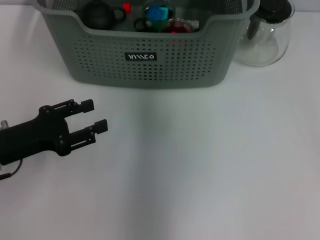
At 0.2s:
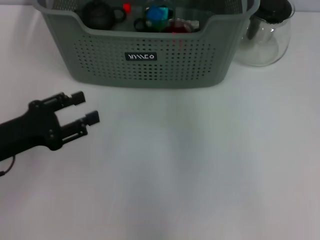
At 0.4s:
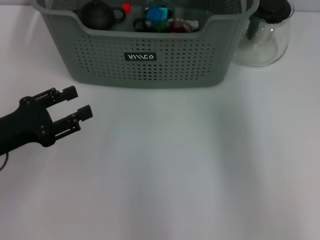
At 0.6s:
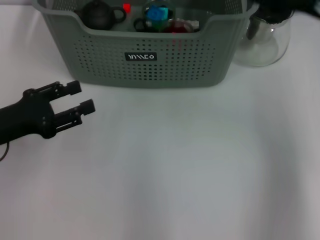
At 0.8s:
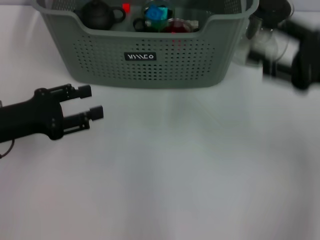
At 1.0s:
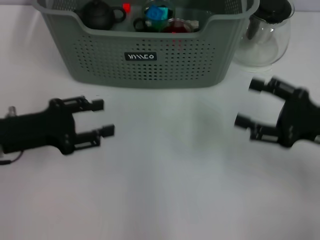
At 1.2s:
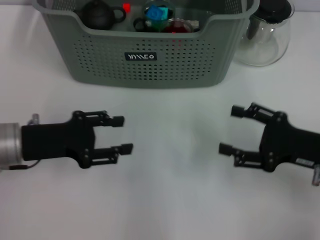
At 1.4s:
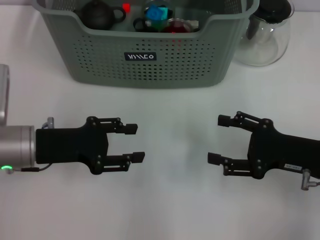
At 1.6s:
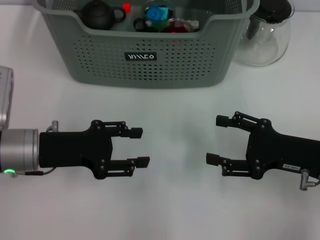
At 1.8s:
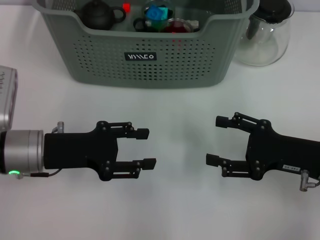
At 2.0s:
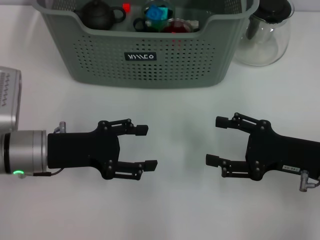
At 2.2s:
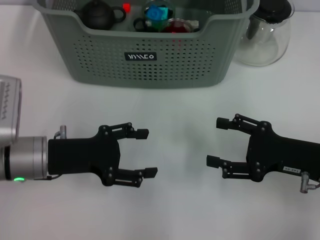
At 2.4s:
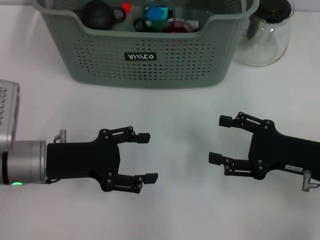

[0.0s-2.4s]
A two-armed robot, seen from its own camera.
Task of the whole recording: pick up the teacup on the table and place it into the storage bin, pick up the block on the table and place it into the storage bin.
0.0s to 1.2s: The right gripper shifts about 35 cm backward, downward and to the right, and opens up.
1.2s to 2.4s: The grippers make only small movements.

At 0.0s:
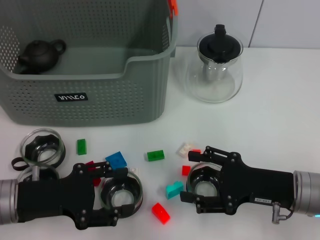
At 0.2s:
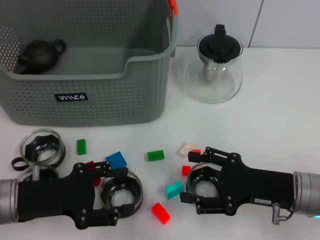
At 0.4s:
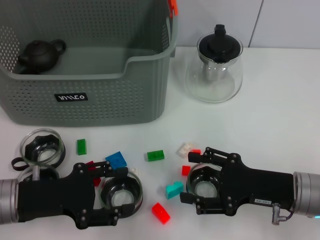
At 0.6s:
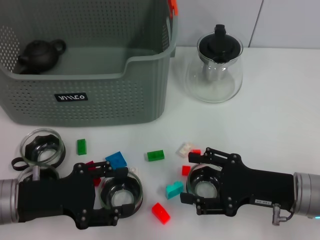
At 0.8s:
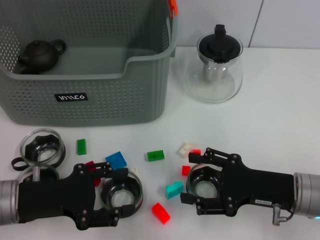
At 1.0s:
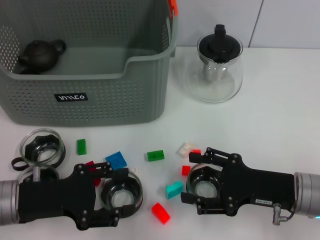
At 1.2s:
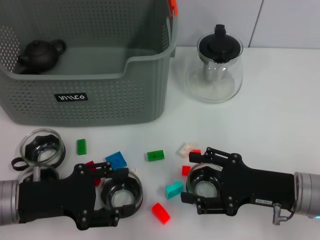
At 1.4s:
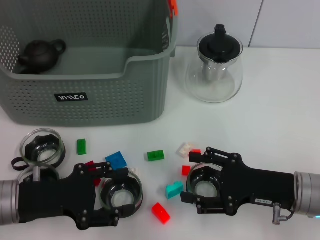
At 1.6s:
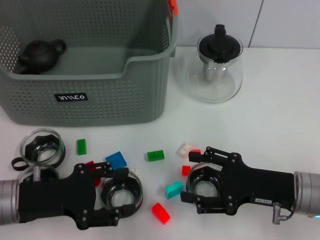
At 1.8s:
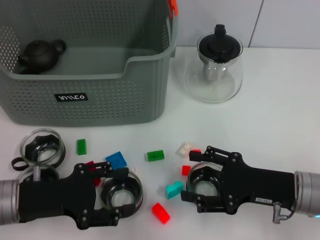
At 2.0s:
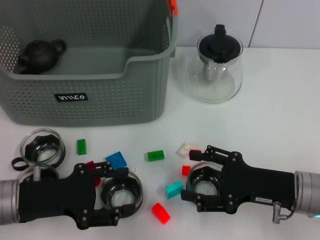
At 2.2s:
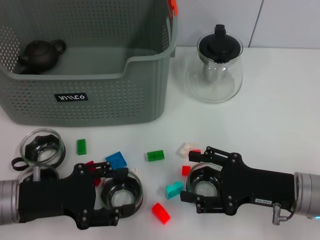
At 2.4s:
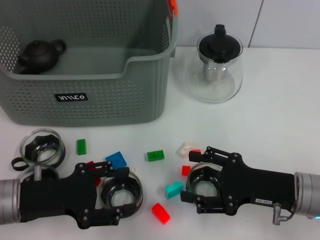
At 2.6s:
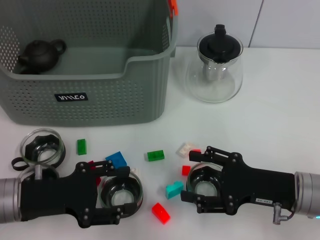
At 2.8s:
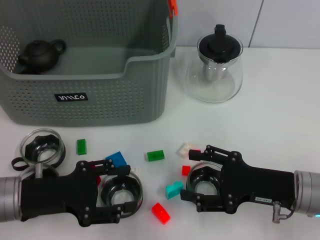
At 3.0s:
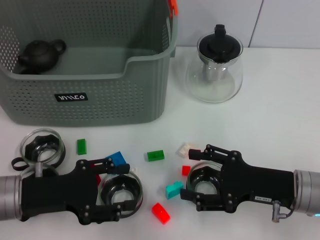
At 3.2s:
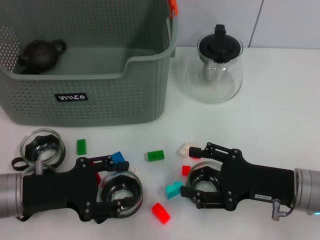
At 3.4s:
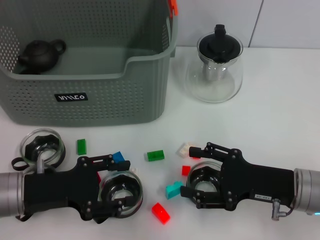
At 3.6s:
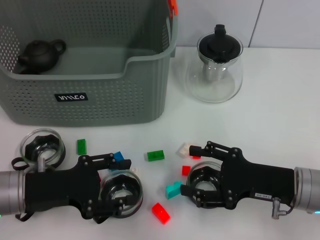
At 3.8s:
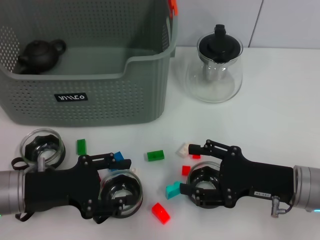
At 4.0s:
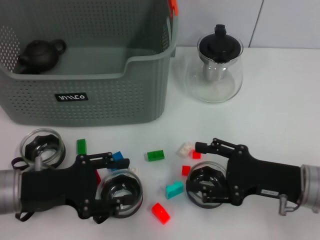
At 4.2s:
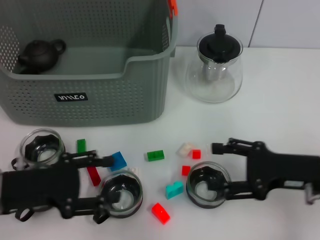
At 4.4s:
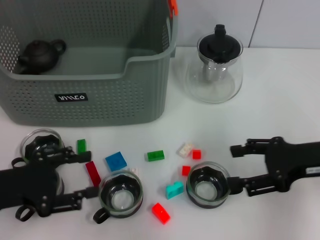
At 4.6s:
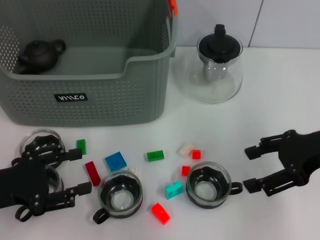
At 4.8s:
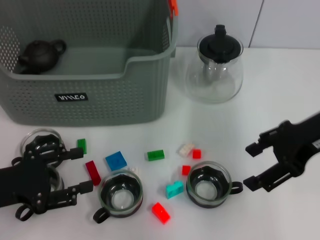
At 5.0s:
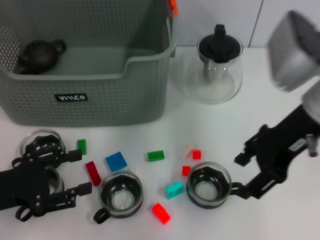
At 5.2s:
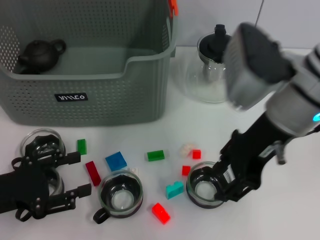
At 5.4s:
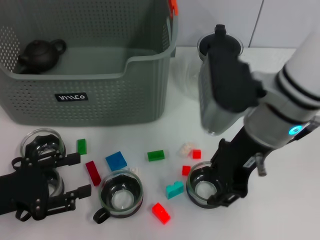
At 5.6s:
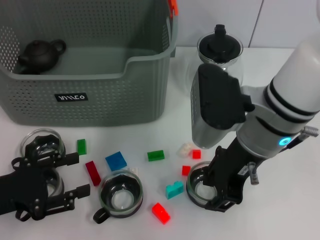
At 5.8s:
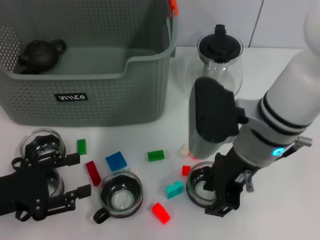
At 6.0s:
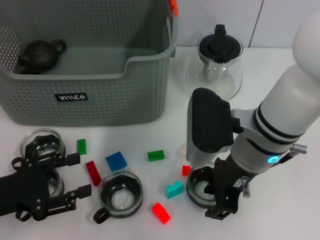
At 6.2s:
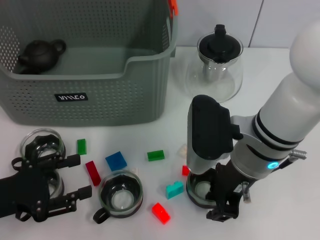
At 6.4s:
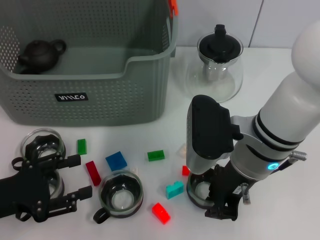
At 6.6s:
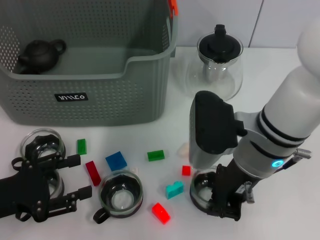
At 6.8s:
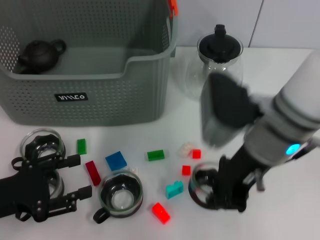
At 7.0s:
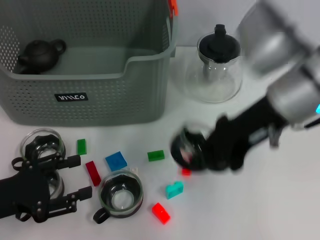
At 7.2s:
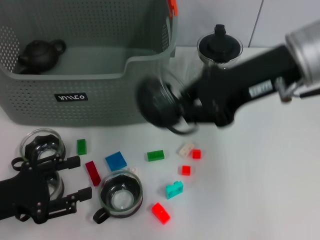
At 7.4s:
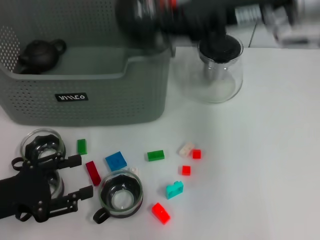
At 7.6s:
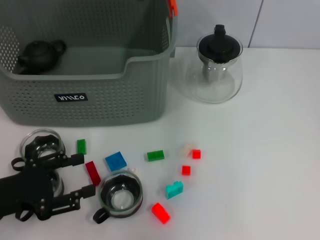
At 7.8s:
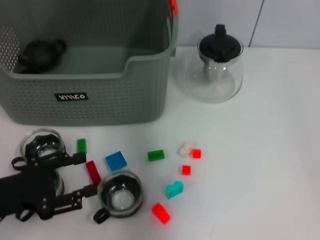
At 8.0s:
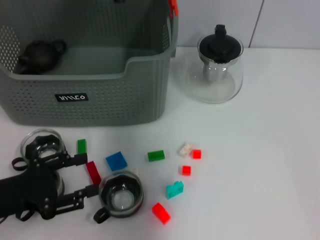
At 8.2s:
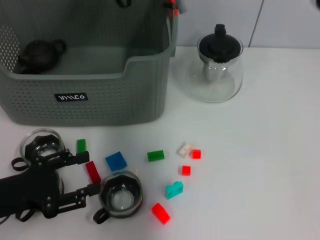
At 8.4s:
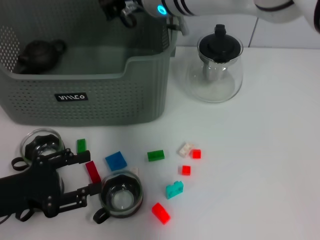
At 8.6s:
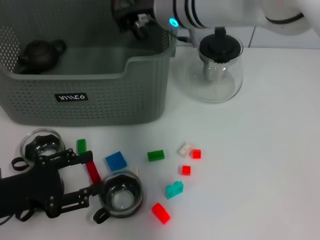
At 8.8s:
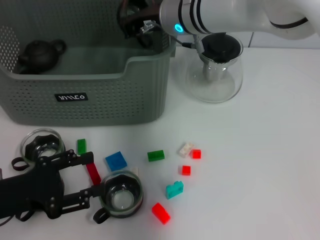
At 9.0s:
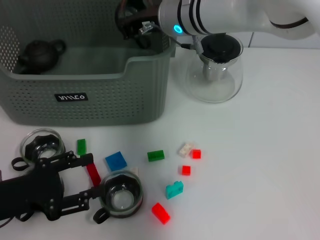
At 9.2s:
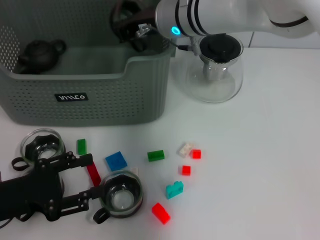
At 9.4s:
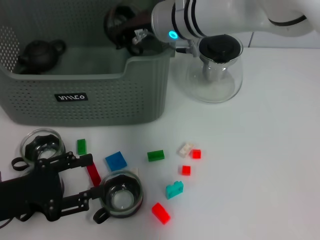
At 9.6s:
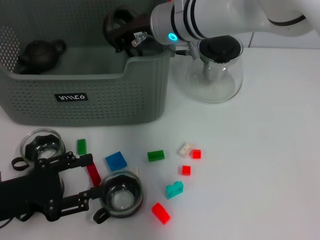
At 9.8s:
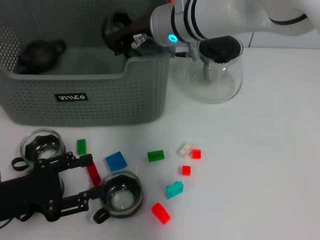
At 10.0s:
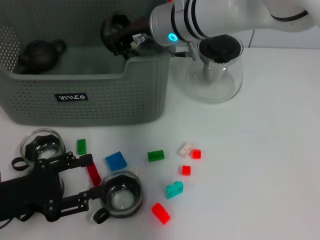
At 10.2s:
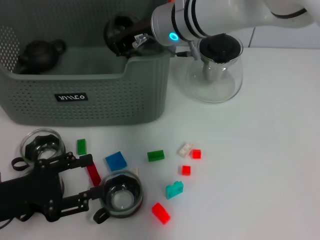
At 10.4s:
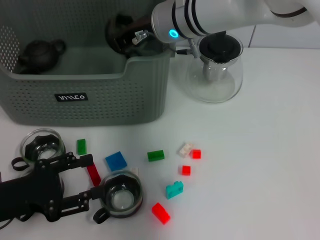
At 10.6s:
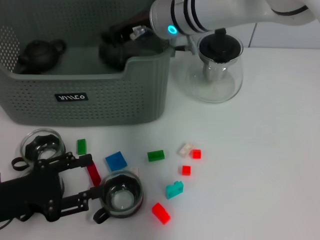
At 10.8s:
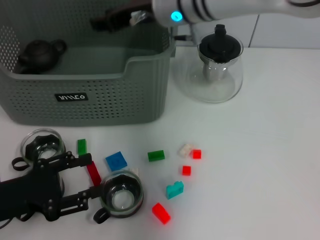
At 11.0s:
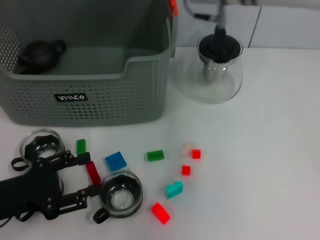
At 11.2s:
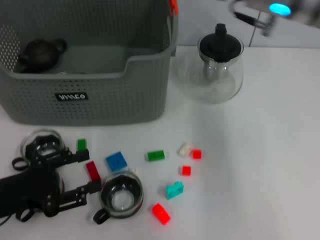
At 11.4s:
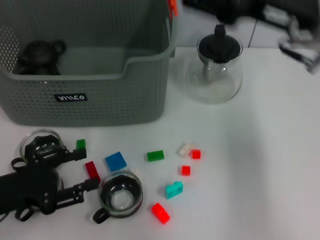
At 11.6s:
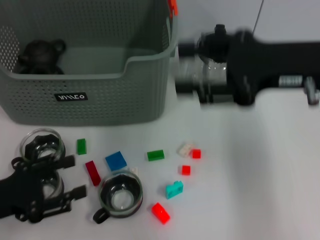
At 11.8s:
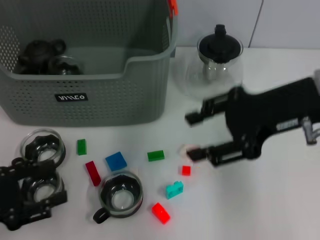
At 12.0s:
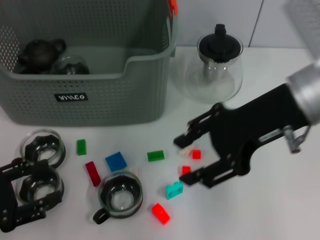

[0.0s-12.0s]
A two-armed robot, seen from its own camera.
Task of the whole recording: pick up the teacup on the table and place it into the storage bin, pick up the block on the table and place it into the storage bin.
Step, 0.0s to 6.4s: Grasp the cup with right gripper.
Step, 6.8s to 11.0s: Place the cup in the storage box with right gripper.
0.0s to 3.0s: Both grippers stay put.
3.0s to 4.4s: The right gripper is displaced upward by approximately 5 cm, while the left gripper moves roughly 5 cm.
4.4s to 6.0s: The right gripper goes some 15 cm to the left, and closes.
6.0s to 7.6s: The right gripper shifts roughly 20 cm upward and forward, and closes its fingers.
7.6s to 9.0s: The right gripper heads downward, to the left and forward, covering some 15 cm.
9.0s to 10.4s: The grippers make only small movements.
10.4s to 12.0s: The right gripper is displaced to the right and backward by about 20 cm, and opens its fingers, while the left gripper ends up some 5 cm from where it was.

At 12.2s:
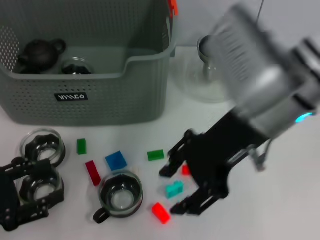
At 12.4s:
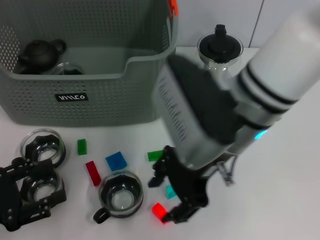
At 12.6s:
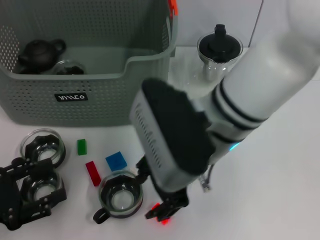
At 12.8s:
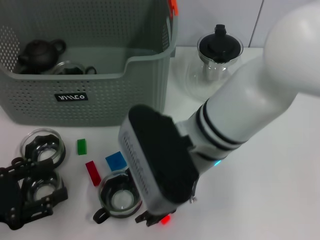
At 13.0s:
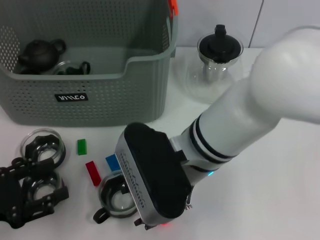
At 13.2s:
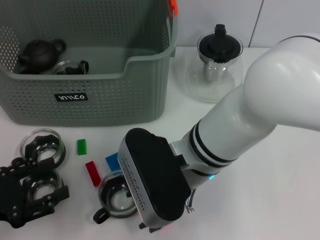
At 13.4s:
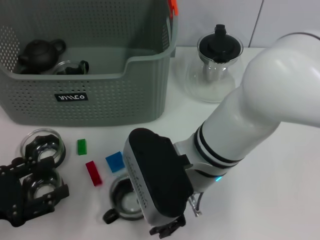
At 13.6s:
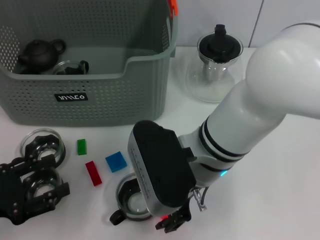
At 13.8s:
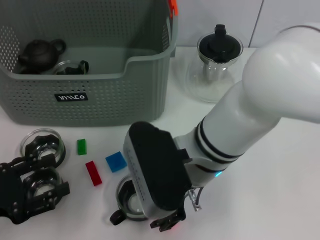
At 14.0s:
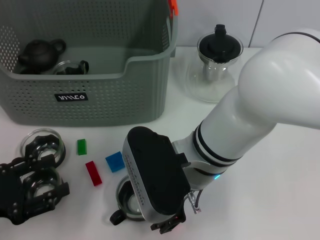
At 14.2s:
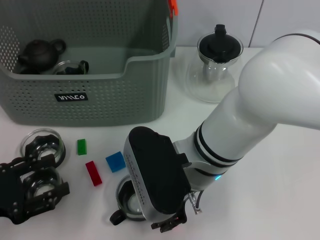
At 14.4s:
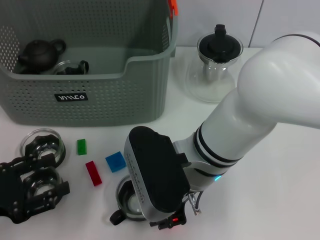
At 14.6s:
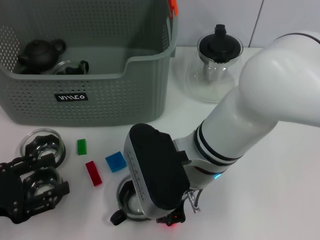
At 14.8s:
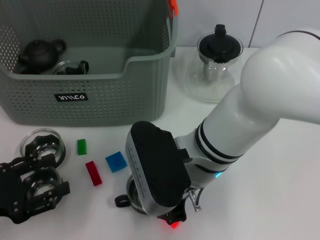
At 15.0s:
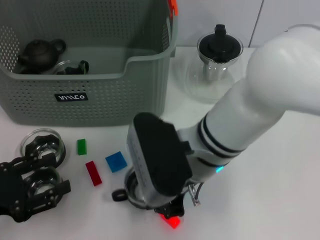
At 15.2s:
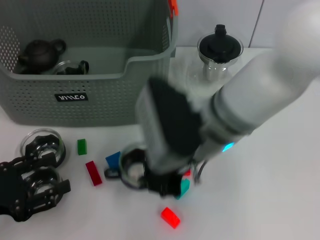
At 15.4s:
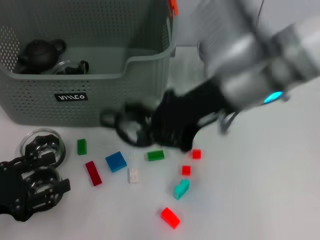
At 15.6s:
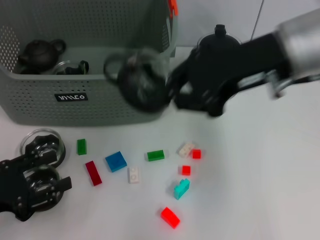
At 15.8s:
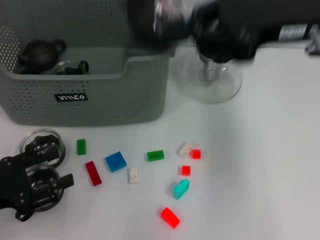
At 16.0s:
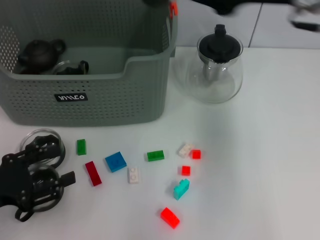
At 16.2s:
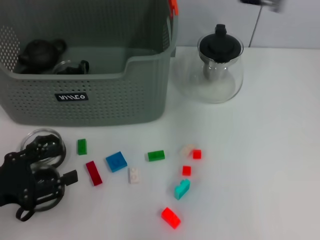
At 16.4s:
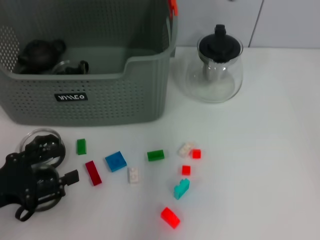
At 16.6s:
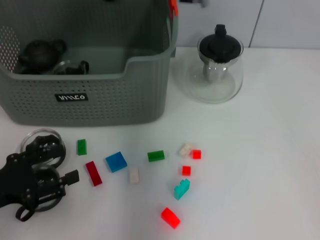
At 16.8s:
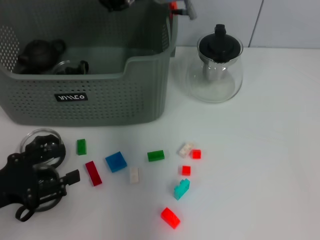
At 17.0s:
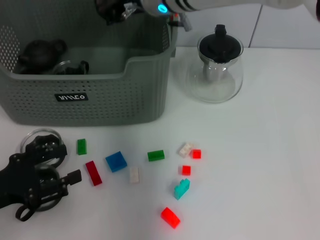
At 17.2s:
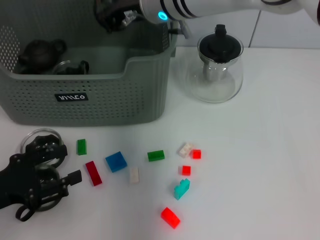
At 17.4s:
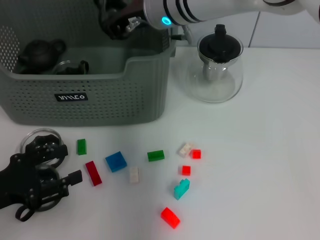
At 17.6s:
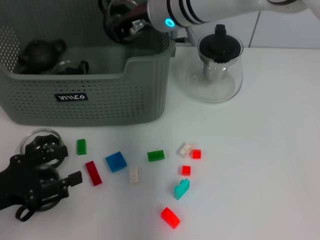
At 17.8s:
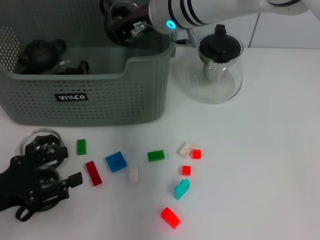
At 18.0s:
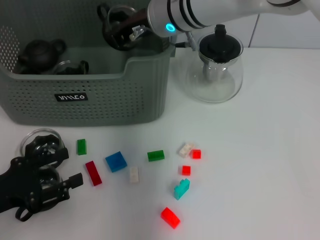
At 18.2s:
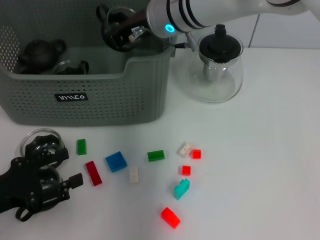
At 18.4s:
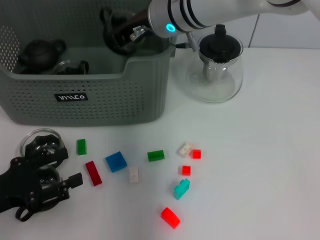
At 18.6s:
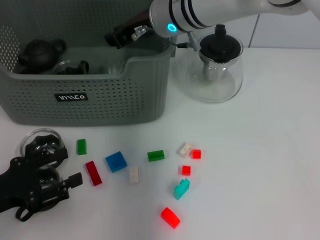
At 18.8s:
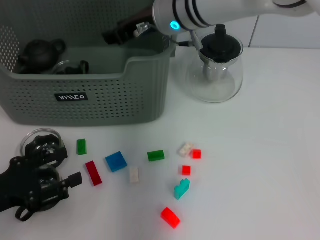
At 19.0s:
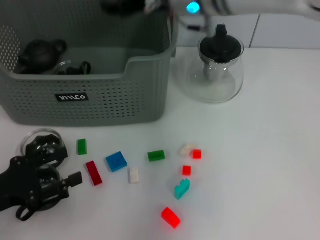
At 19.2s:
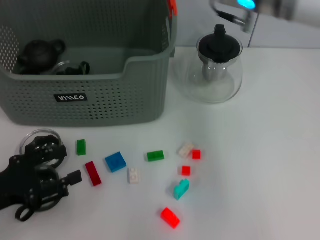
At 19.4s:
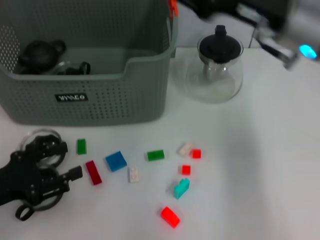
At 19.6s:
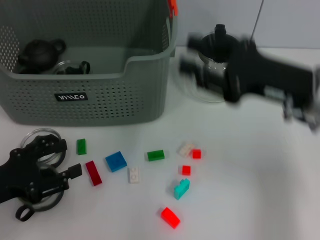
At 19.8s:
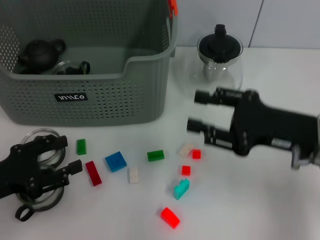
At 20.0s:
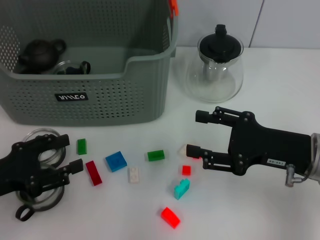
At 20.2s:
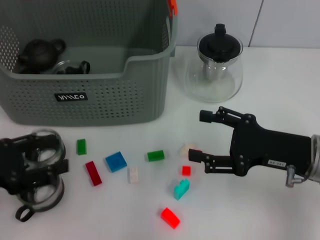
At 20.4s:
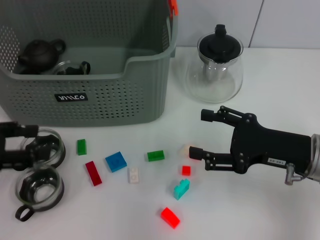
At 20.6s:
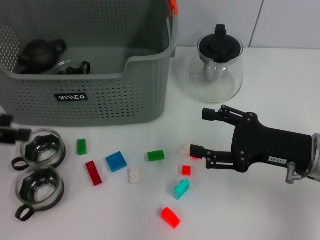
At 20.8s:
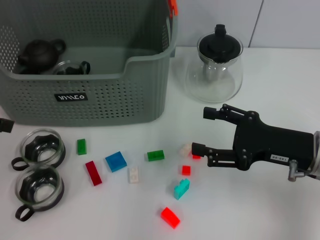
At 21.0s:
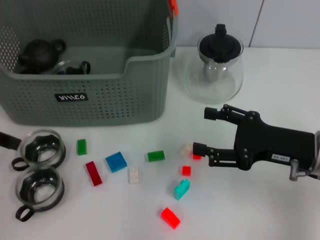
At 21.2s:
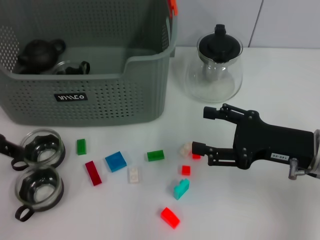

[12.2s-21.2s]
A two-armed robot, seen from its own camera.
Task of the whole recording: pick up the teacup on the table and place it into the storage bin, pick up the block on the table and place it into the storage bin.
Step, 12.2s to 15.0s: Grasp the cup with right gripper.
Step, 15.2s to 19.4s: Place the cup in the storage box with right gripper.
12.2s to 13.8s: The right gripper travels downward and to the left by roughly 10 cm.
13.8s to 15.2s: The right gripper closes.
15.2s to 16.6s: The right gripper is displaced forward and upward by roughly 15 cm, and goes to the right and returns, some 15 cm each way.
16.6s to 18.2s: The right gripper is displaced downward by roughly 5 cm.
18.2s to 19.8s: The right gripper heads to the right and backward, covering roughly 25 cm, and opens up.
19.8s to 21.2s: The right gripper opens. The left gripper travels upward and forward by about 15 cm.
